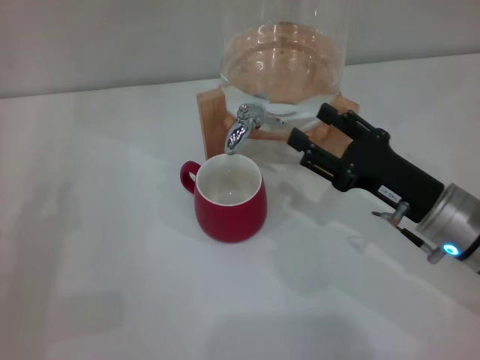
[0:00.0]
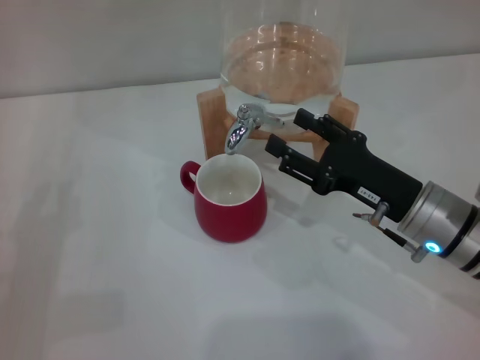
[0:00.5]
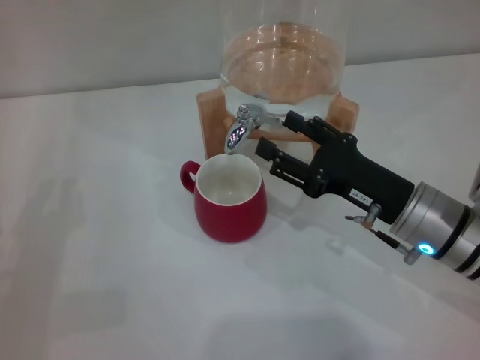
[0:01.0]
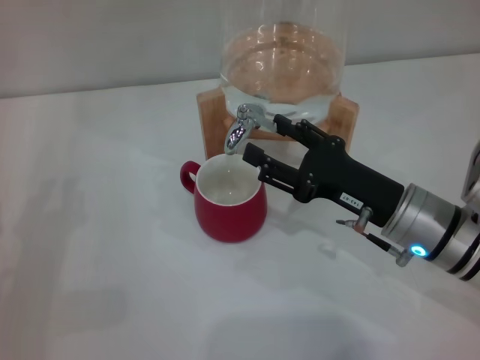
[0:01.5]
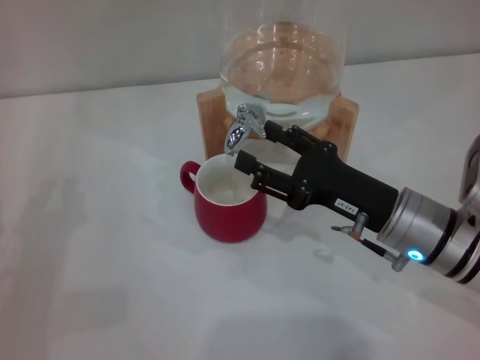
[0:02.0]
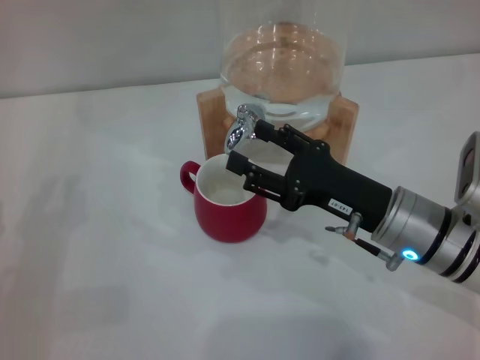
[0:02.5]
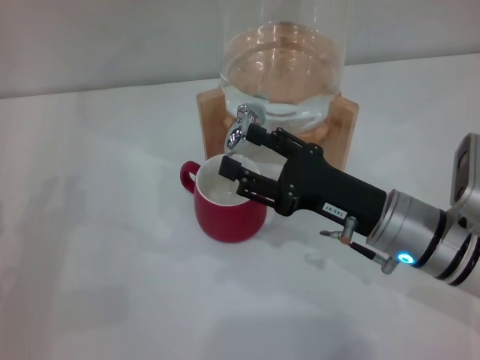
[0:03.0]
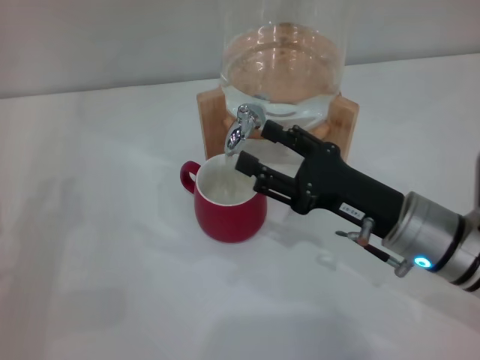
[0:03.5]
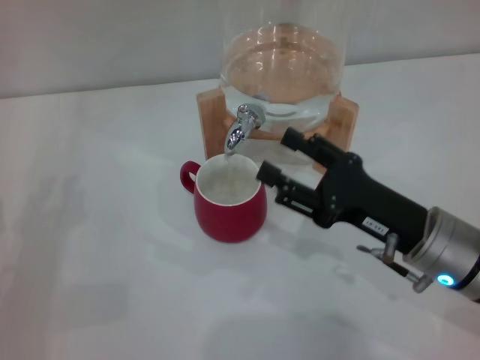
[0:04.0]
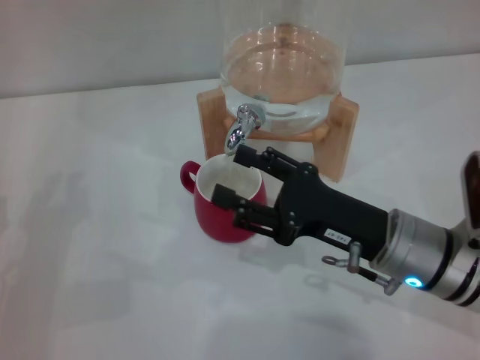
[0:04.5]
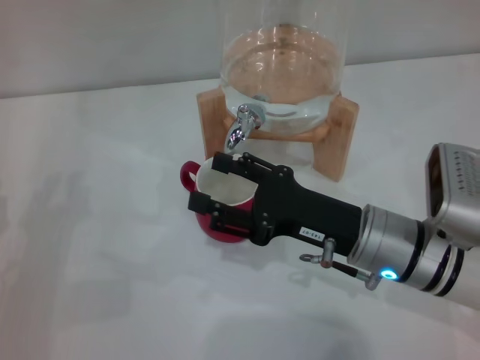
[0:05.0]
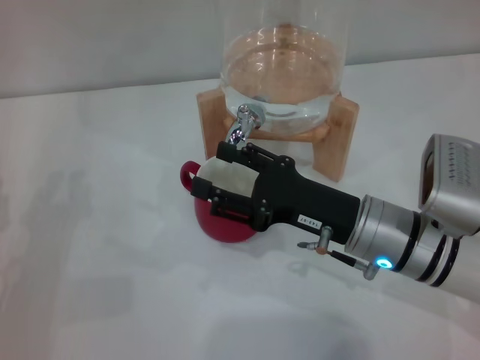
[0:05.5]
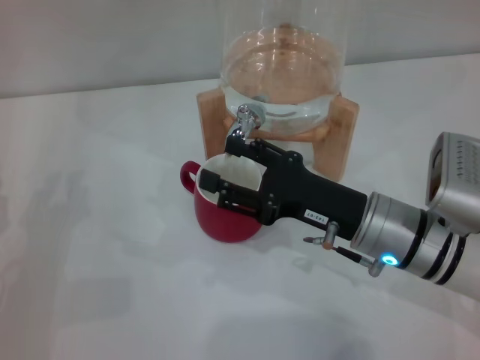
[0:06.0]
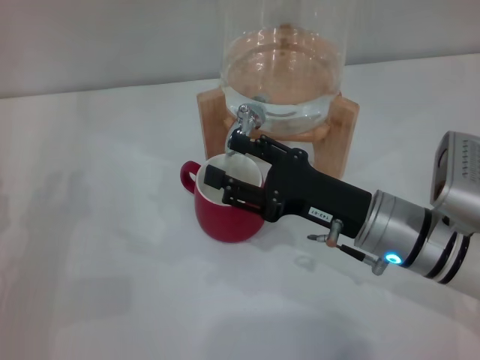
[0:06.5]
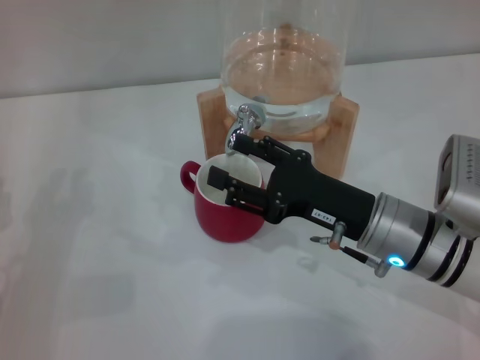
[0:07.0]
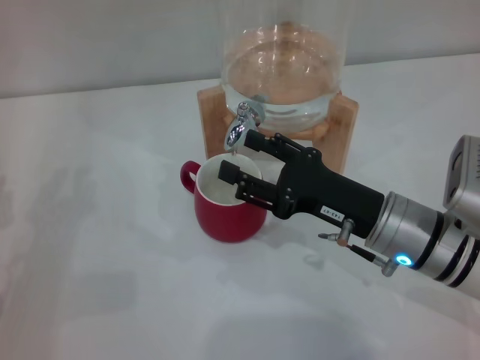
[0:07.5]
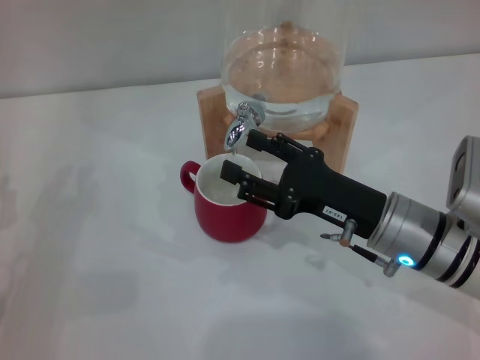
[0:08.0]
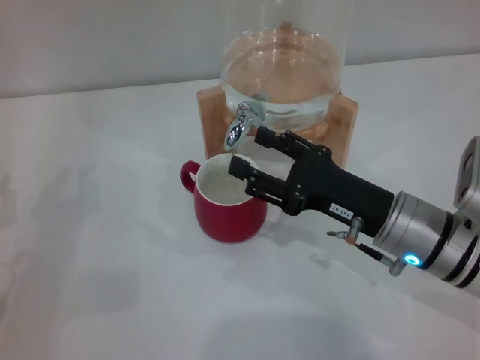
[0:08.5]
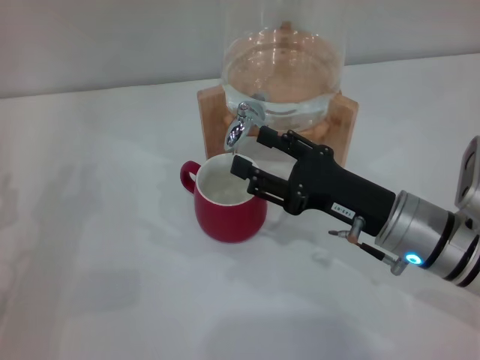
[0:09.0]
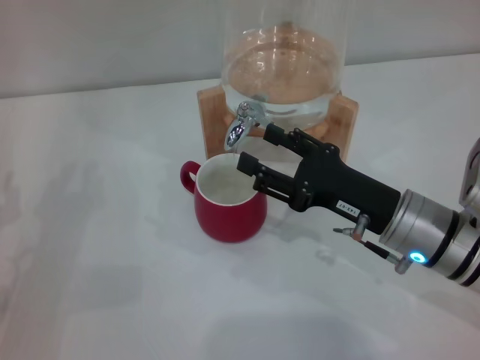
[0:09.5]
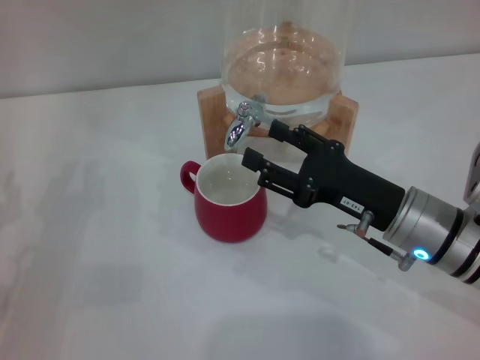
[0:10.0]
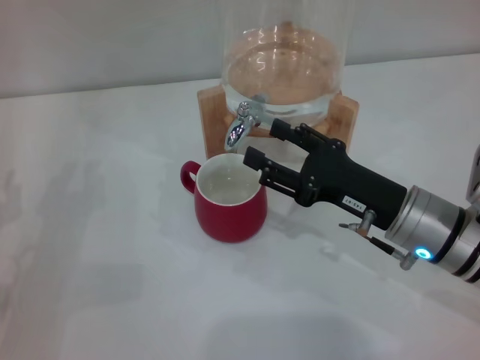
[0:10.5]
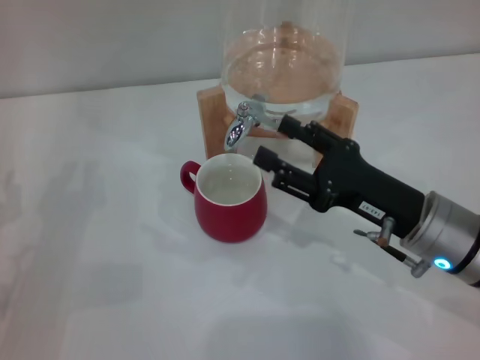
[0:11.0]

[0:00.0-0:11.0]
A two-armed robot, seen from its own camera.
Task of the whole recording: the left gripper pick up the red cup and place it horizontally under the faucet, the right gripper turn on the faucet to fill the cup, and then turn off the faucet.
Step, 0:00.0 to 0:05.5: Open the dispenser valve and fill the cup with water with the right gripper.
0:00.0 to 0:02.0: The grippers move only a little.
0:02.0 to 0:03.5: Both grippers stay put.
0:03.5 to 0:07.5: The grippers stay close to where they were, moving slightly.
0:07.5 to 0:09.0: Both grippers stay put.
0:09.0 to 0:11.0: There are only small adjustments of the grippers.

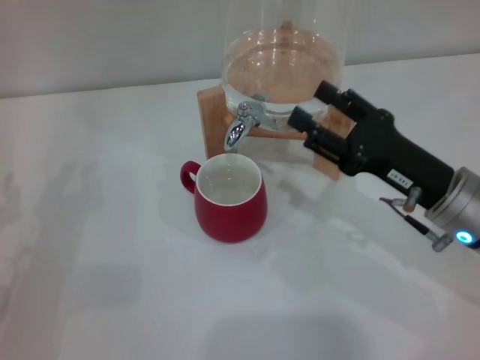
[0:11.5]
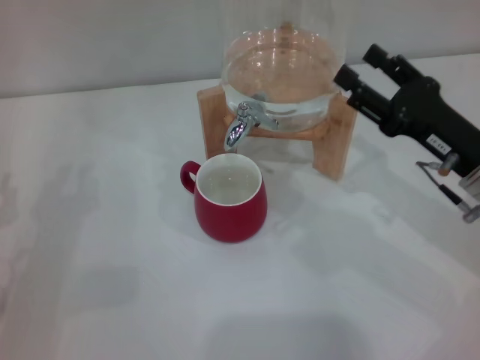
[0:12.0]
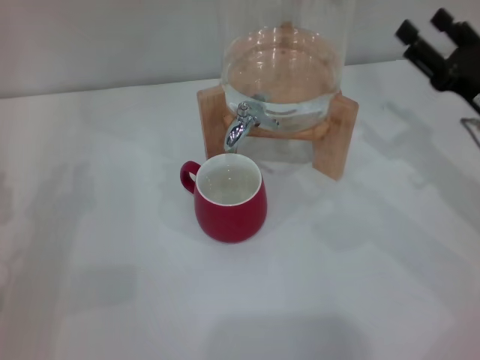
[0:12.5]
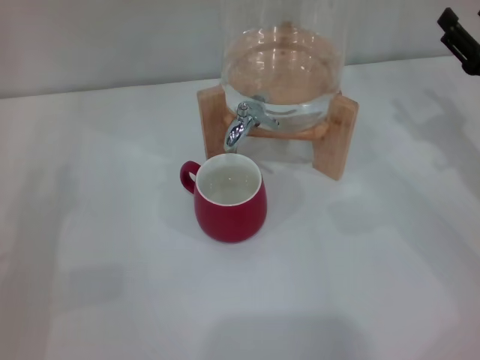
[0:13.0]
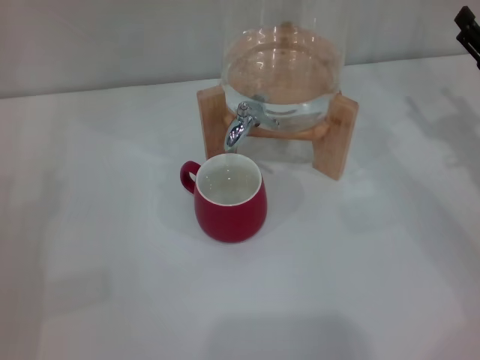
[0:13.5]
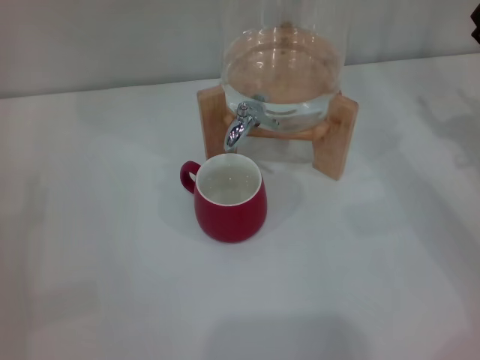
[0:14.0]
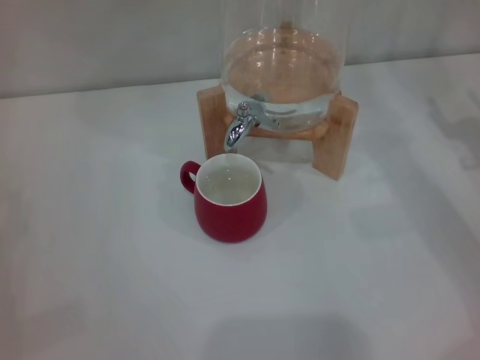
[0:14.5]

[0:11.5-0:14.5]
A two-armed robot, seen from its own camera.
Task of the whole recording: the left gripper pick up the red cup and place it horizontally under the faucet, the right gripper turn on the faucet to fill the cup, and then turn off the faucet.
0:11.5 to 0:13.0: The right gripper travels to the right by approximately 10 cm.
